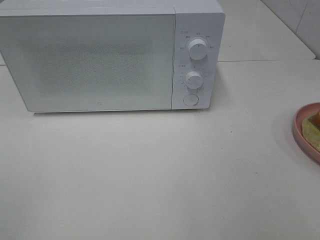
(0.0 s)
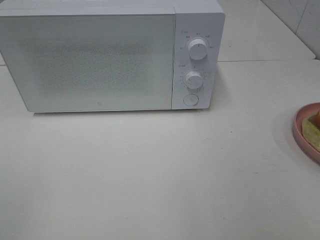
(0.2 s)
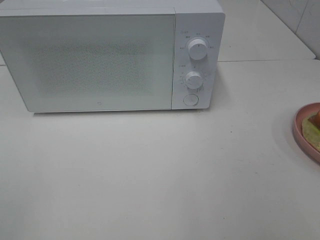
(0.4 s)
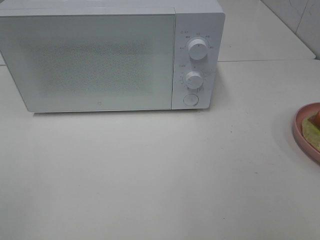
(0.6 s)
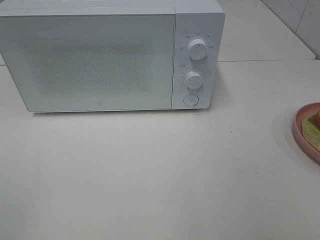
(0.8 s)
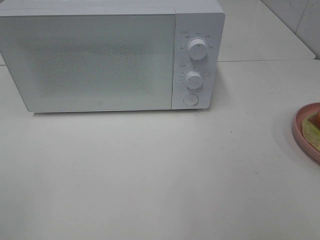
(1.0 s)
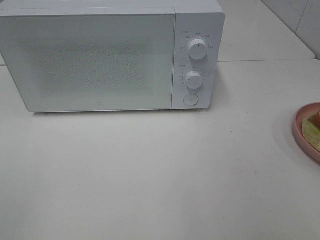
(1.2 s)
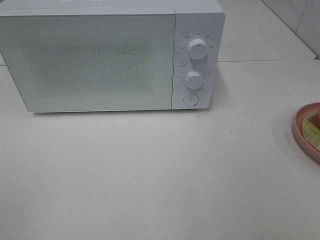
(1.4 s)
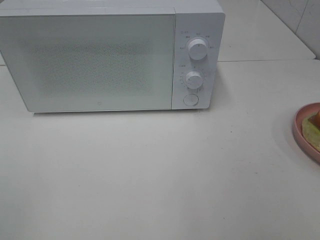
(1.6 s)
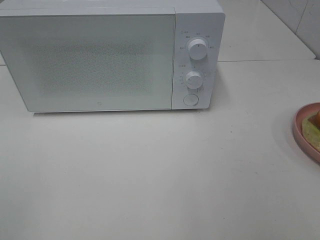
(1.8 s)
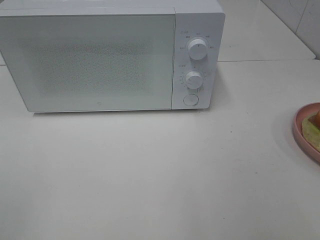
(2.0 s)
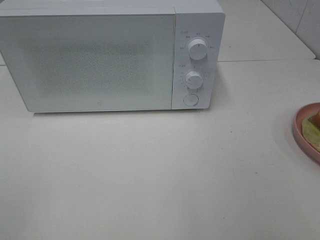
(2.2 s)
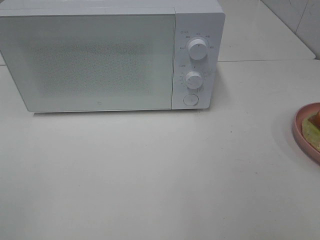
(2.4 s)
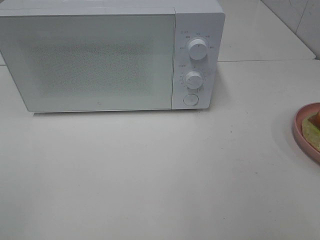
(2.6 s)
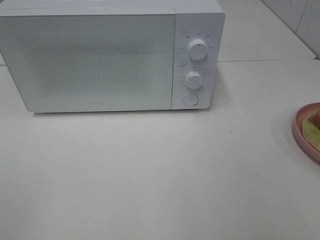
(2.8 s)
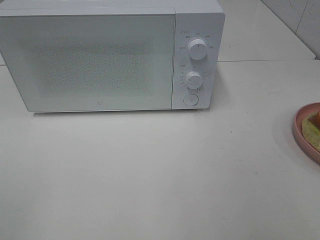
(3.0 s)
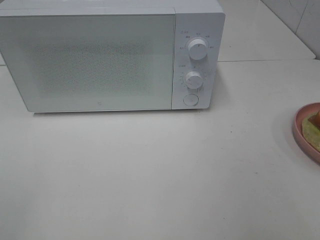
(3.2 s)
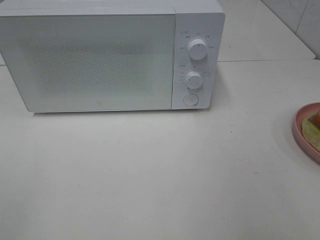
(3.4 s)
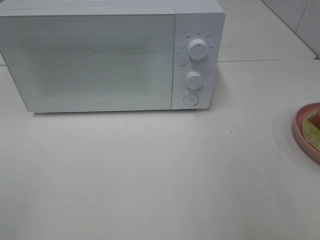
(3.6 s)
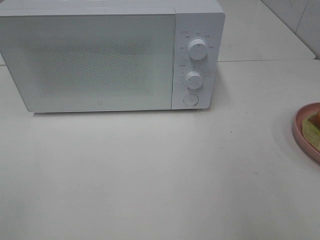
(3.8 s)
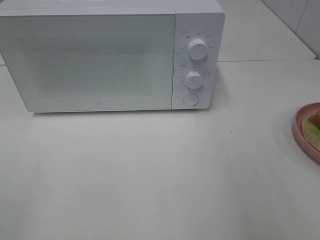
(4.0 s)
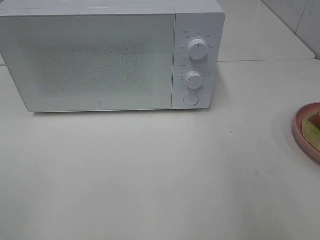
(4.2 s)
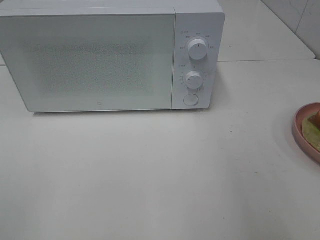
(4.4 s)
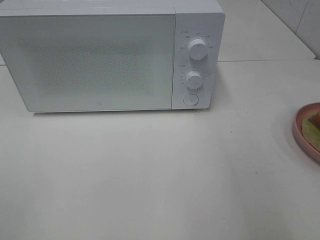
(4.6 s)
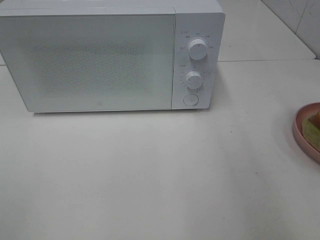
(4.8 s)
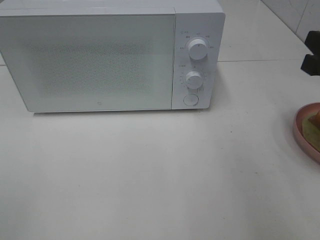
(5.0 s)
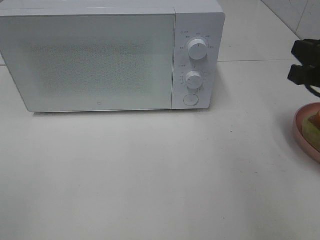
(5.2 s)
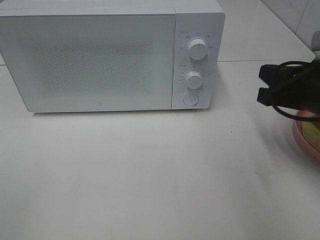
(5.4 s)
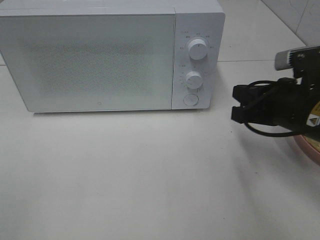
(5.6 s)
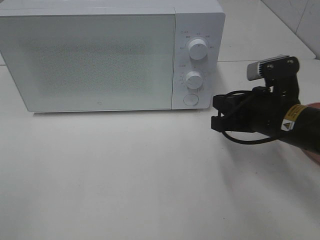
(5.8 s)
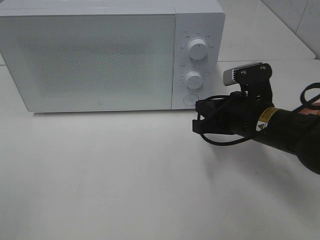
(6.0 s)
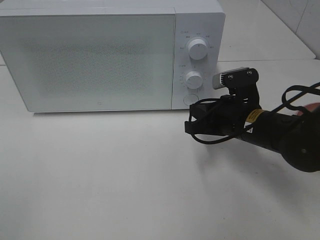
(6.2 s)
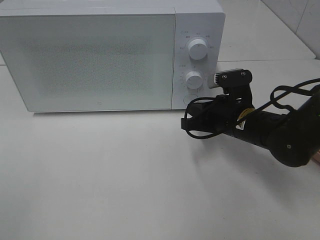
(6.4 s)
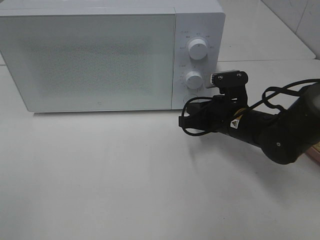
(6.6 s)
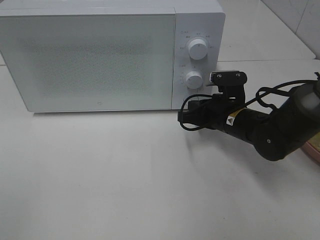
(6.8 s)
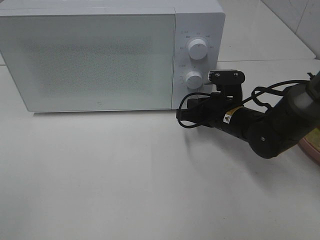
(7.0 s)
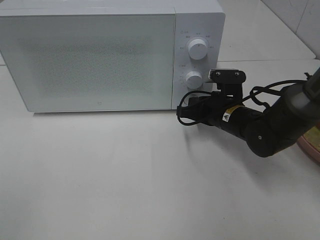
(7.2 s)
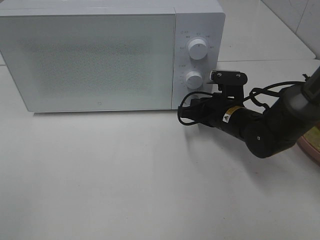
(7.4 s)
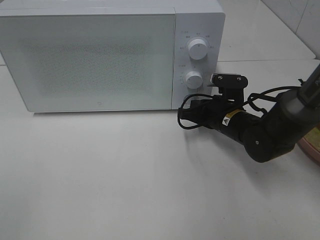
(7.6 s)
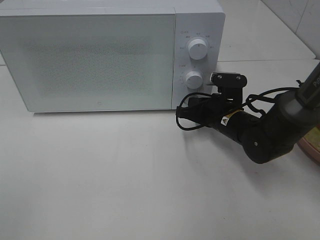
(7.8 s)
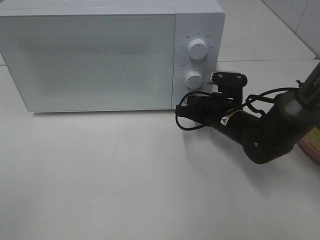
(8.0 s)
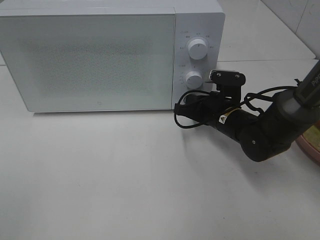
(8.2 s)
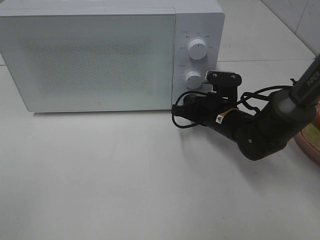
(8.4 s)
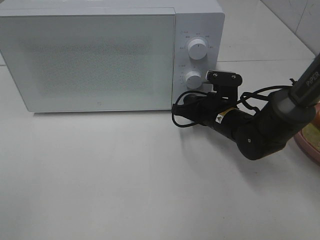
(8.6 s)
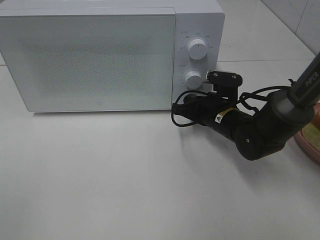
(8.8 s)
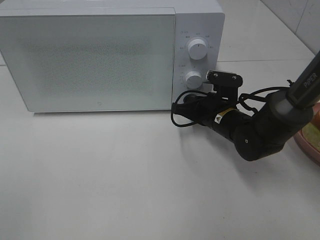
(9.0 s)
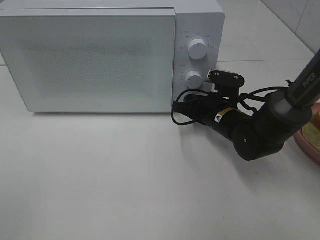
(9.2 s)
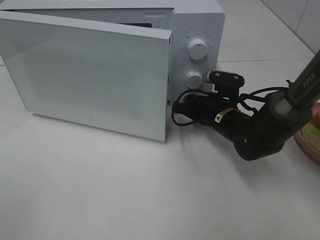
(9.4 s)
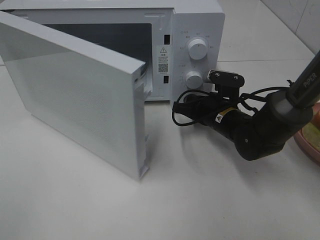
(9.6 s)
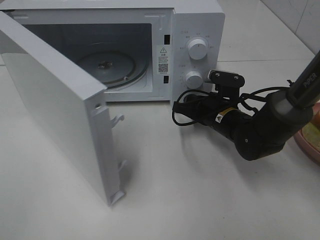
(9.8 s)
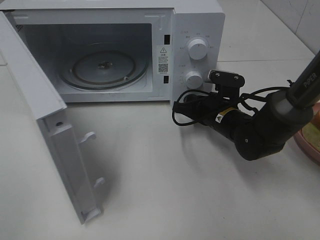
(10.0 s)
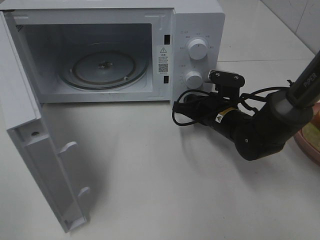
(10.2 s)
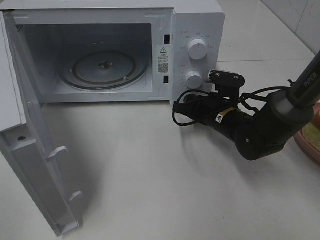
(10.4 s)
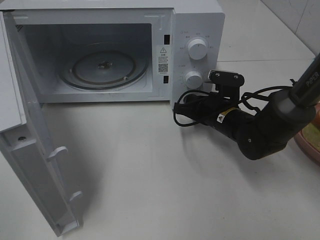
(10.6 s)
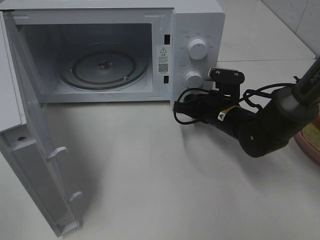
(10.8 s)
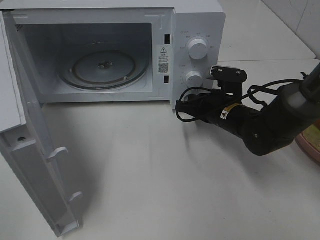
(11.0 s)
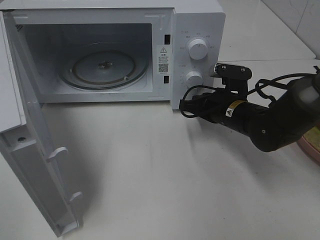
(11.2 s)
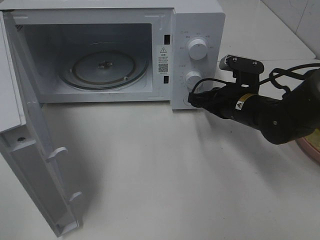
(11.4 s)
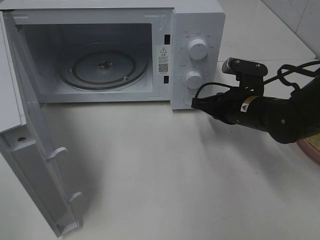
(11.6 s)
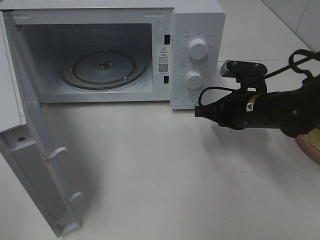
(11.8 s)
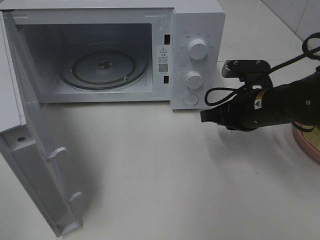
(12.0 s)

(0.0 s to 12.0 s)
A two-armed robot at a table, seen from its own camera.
Task of the whole recording: Heat Sandwich.
Step, 0.0 s - 11.4 s: Right hand: press the switch.
0.0 s - 3.0 s: Both grippers stay put.
4.4 s - 6.0 s: The right gripper shifts approximately 25 cm downward, to the left and forward, and closes up.
6.0 s - 7.6 s: The right gripper moves forward and downward, about 10 cm.
7.6 s - 9.0 s: The two grippers keep their place.
10.4 s - 12.0 s: The right gripper is displaced upward and backward by roughly 10 cm.

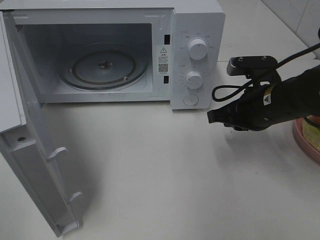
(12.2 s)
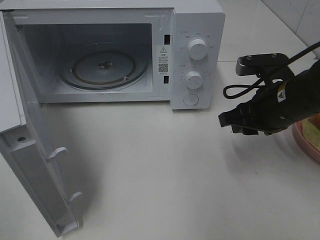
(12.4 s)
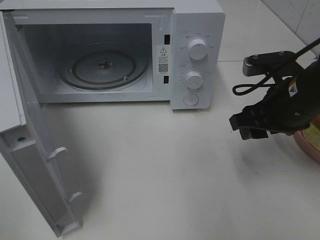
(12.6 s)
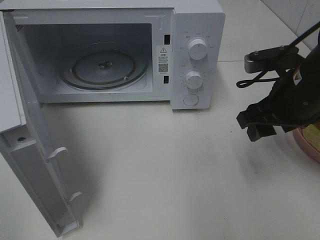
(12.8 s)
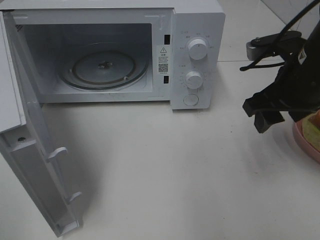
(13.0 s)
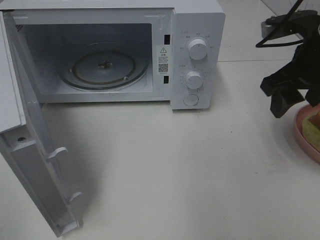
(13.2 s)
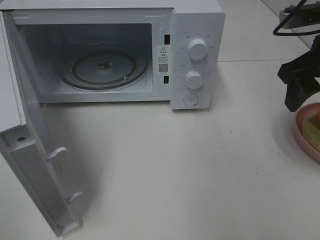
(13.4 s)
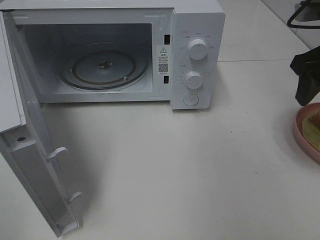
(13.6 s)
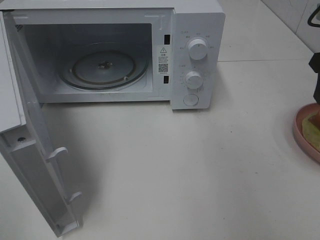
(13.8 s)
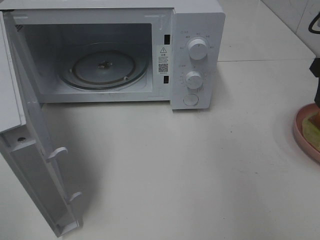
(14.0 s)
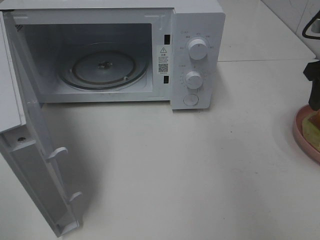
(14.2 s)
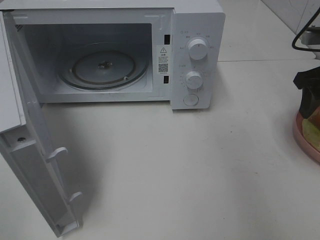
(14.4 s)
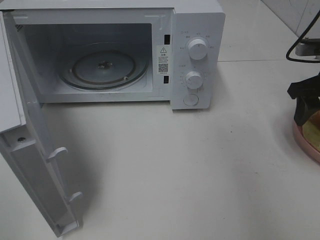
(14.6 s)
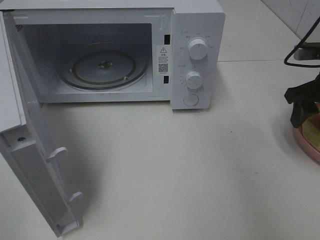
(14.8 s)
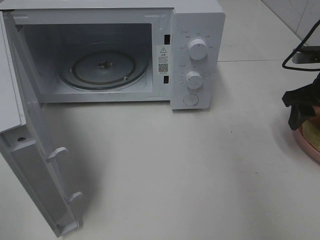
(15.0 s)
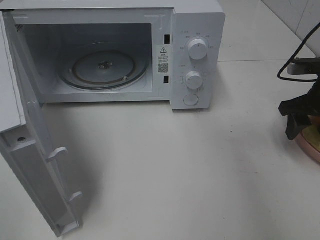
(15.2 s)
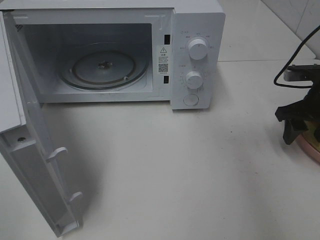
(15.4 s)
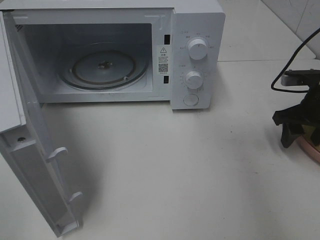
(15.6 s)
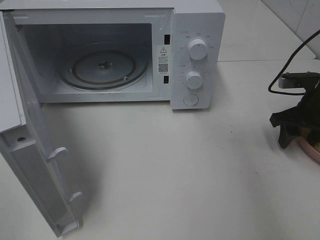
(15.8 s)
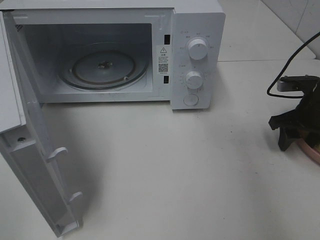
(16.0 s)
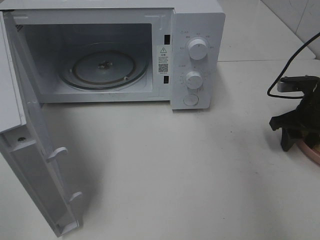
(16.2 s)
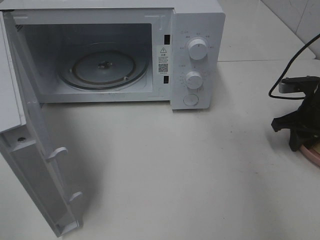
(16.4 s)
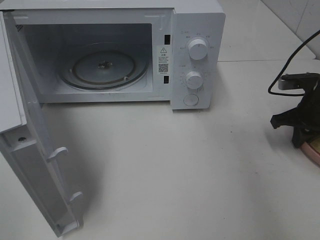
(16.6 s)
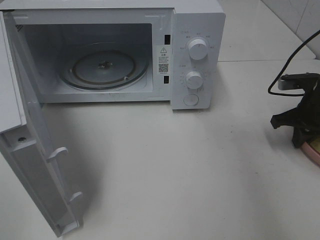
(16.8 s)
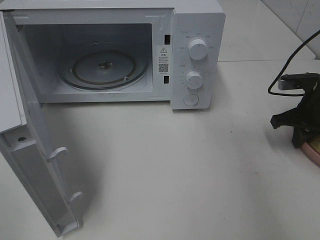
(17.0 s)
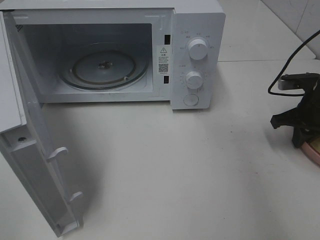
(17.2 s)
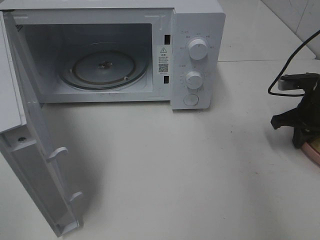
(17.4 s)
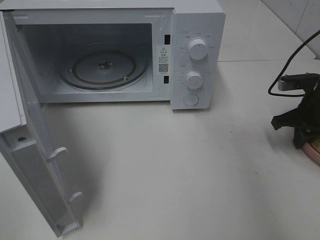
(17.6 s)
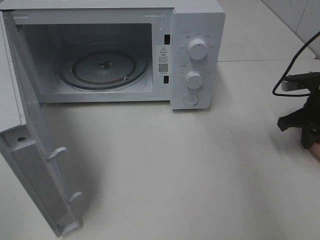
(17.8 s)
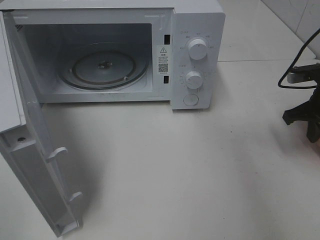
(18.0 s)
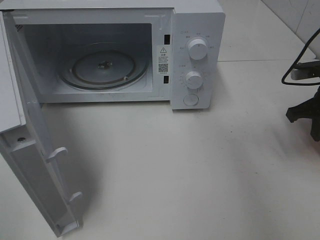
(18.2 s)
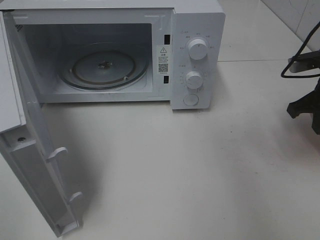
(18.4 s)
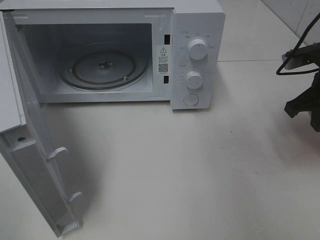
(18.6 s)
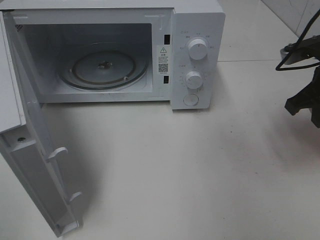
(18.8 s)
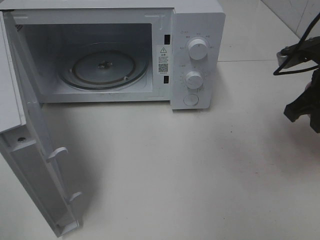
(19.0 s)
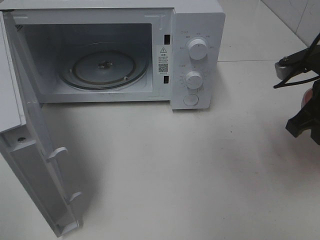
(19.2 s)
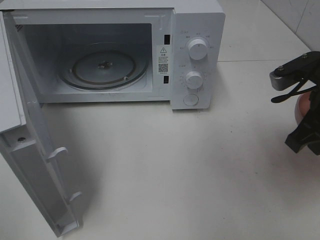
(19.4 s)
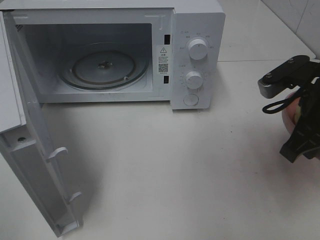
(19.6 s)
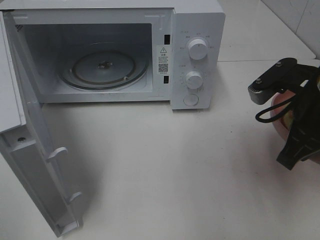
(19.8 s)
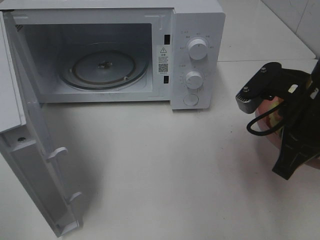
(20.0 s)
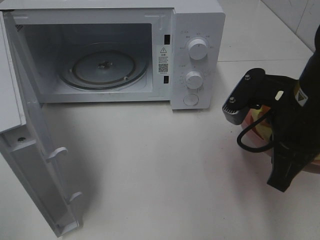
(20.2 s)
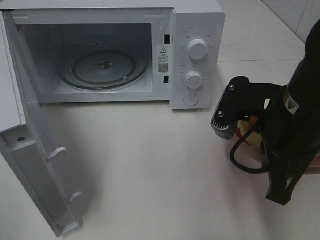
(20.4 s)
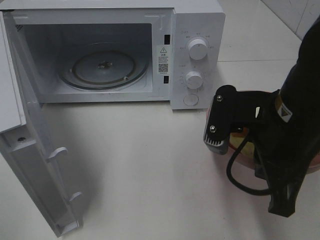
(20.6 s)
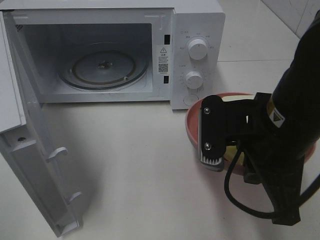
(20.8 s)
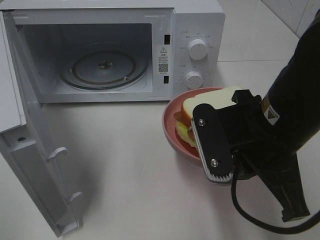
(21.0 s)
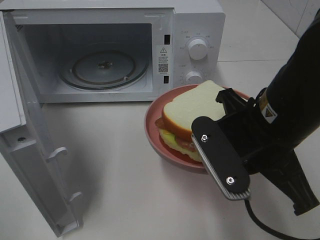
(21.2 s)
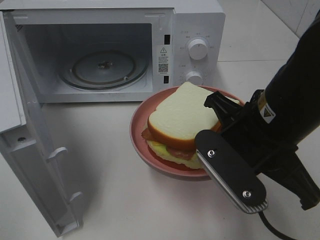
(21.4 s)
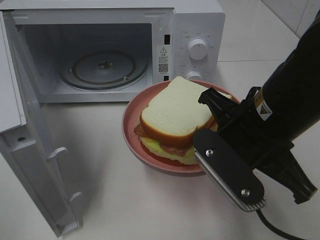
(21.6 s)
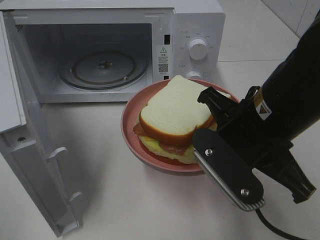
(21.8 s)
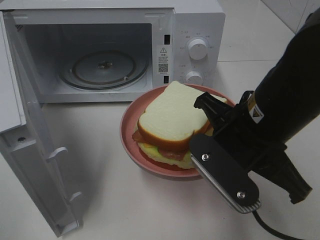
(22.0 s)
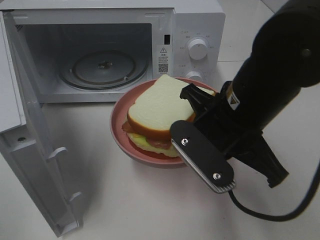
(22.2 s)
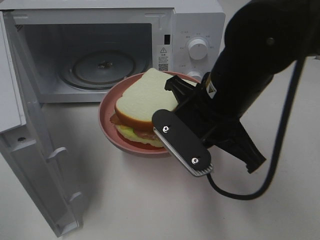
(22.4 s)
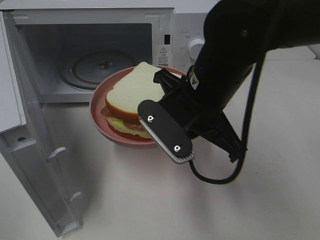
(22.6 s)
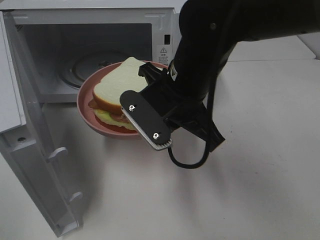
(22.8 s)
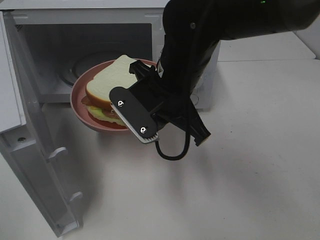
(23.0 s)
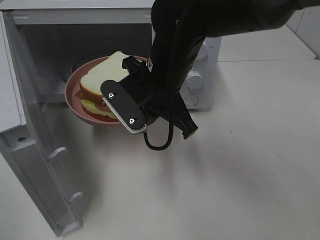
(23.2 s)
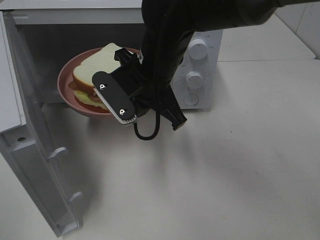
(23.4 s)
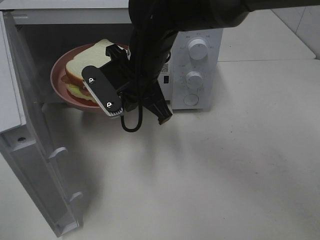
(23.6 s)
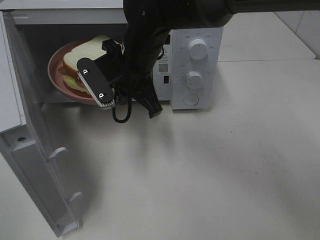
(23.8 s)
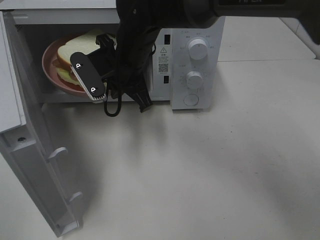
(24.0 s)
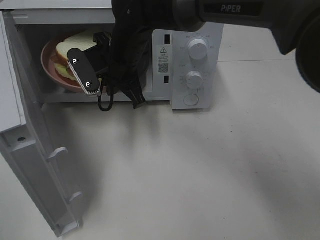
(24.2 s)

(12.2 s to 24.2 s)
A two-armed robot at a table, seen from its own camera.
Task of the whole recording: Heat Sandwich.
Step, 12.2 s - 17.2 s: Right hand: grab the plate with the sandwich.
12.2 s - 13.8 s: The right gripper heads upward and to the right, covering about 15 cm, and opens its fingers.
13.8 s - 15.2 s: The right gripper is displaced downward by approximately 10 cm.
15.2 s - 16.6 s: The right gripper closes.
16.6 s - 18.2 s: The right gripper moves roughly 5 cm.
18.2 s - 19.8 s: The right gripper shifts roughly 15 cm to the left, backward and upward.
19.8 s - 21.2 s: The right gripper travels to the left by approximately 10 cm.
21.2 s - 22.6 s: The right gripper goes approximately 10 cm to the left and forward.
22.6 s - 24.2 s: The right gripper is displaced forward and to the left by approximately 20 cm.
